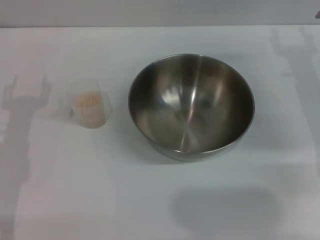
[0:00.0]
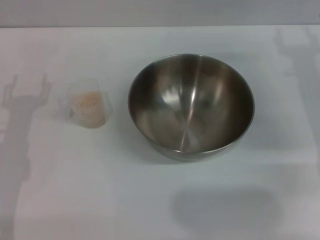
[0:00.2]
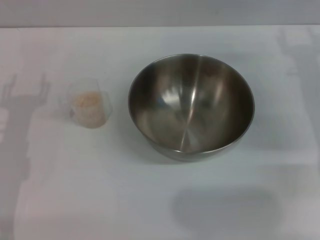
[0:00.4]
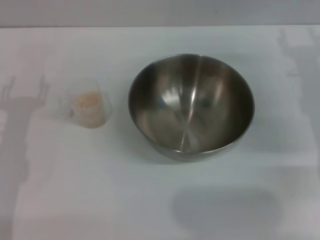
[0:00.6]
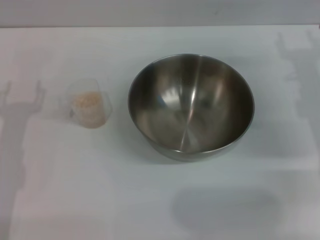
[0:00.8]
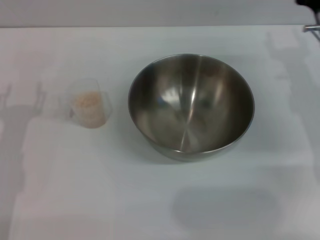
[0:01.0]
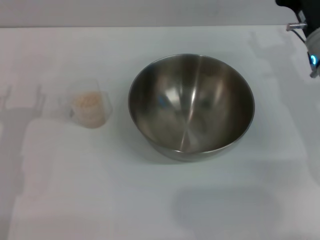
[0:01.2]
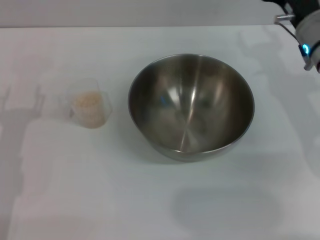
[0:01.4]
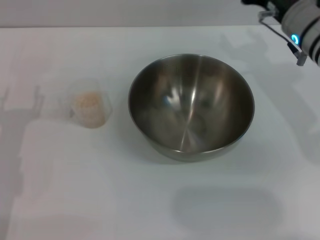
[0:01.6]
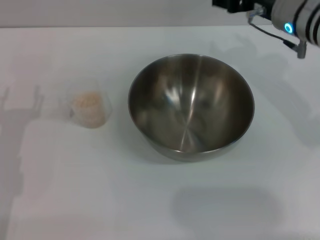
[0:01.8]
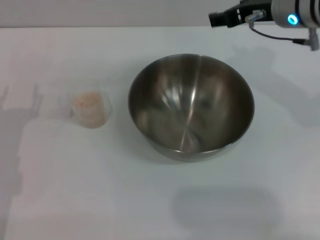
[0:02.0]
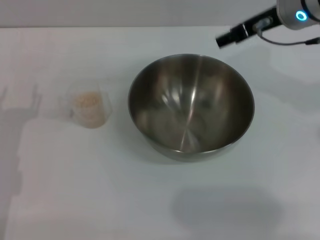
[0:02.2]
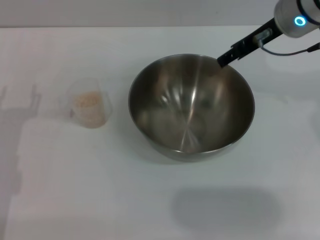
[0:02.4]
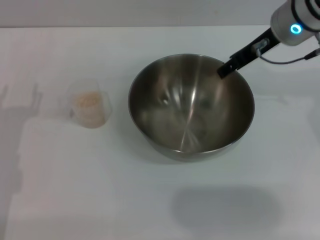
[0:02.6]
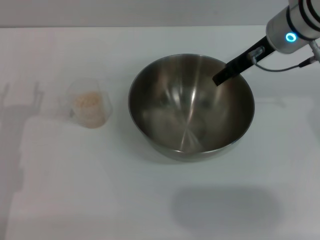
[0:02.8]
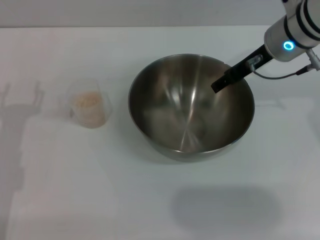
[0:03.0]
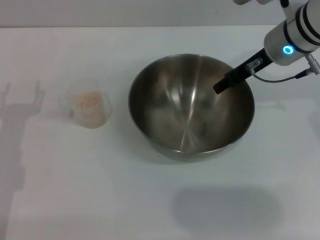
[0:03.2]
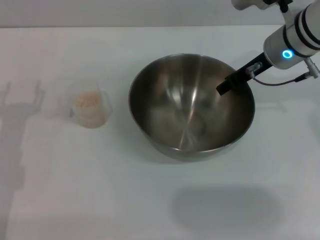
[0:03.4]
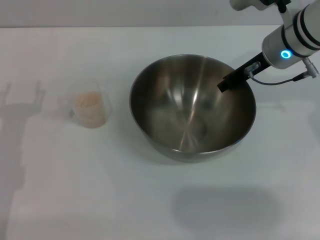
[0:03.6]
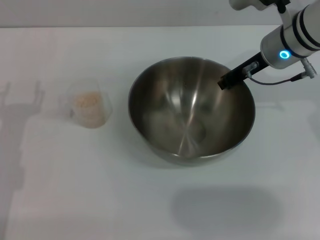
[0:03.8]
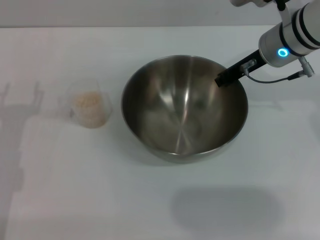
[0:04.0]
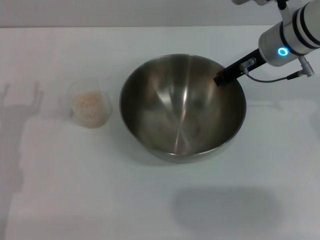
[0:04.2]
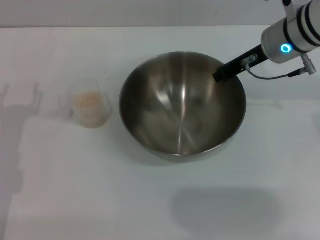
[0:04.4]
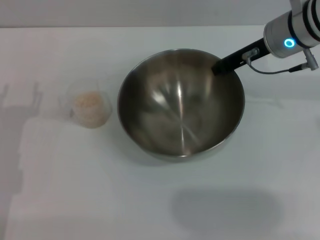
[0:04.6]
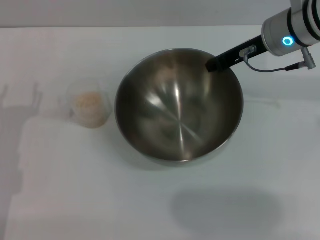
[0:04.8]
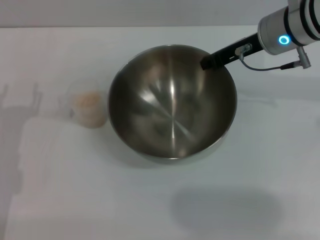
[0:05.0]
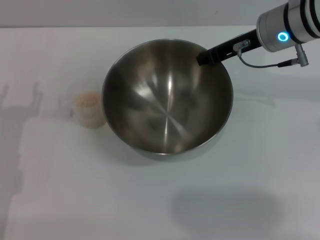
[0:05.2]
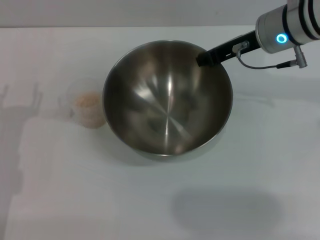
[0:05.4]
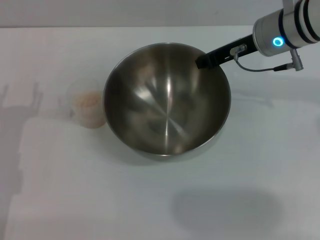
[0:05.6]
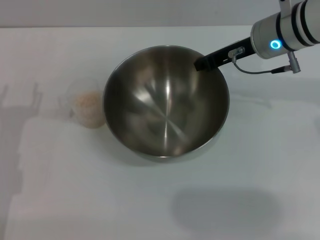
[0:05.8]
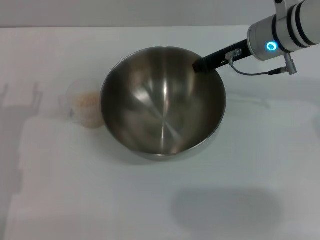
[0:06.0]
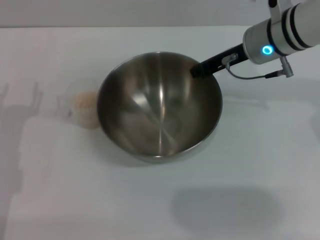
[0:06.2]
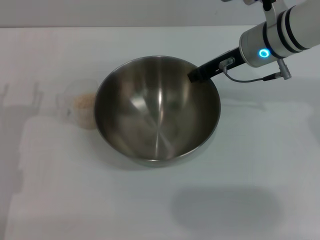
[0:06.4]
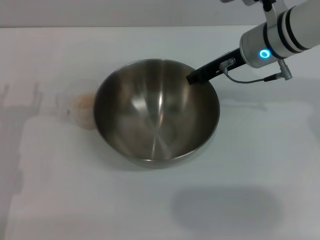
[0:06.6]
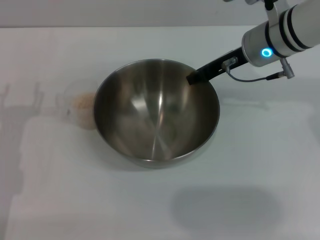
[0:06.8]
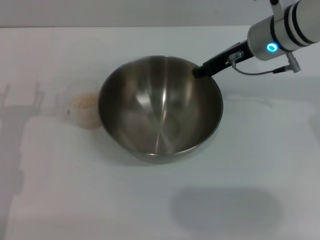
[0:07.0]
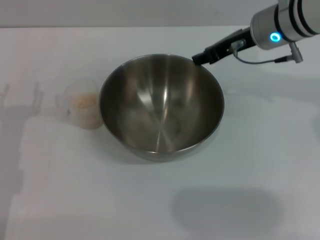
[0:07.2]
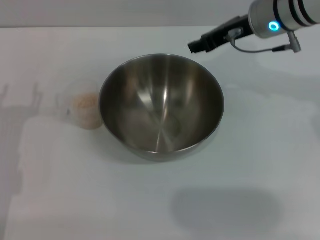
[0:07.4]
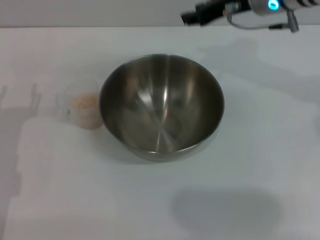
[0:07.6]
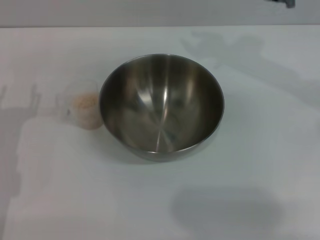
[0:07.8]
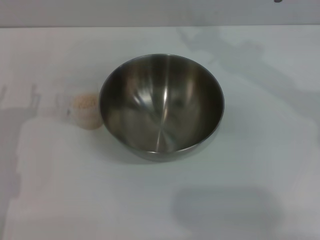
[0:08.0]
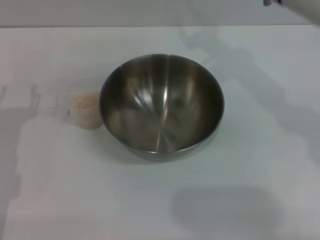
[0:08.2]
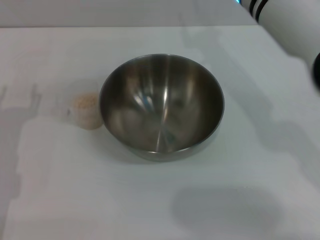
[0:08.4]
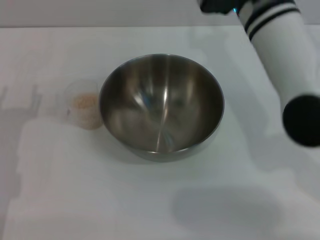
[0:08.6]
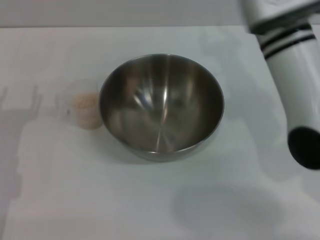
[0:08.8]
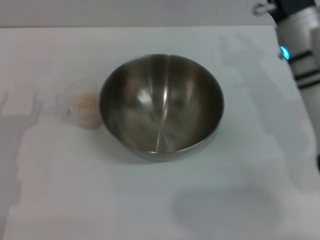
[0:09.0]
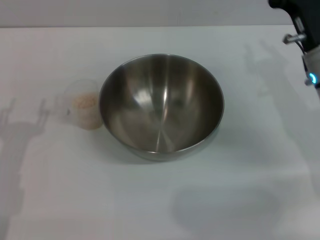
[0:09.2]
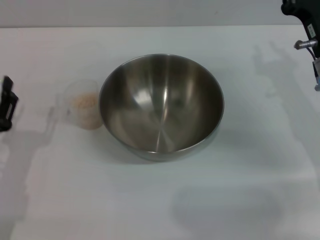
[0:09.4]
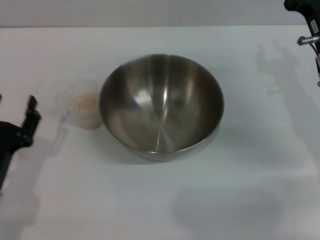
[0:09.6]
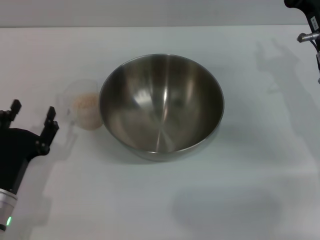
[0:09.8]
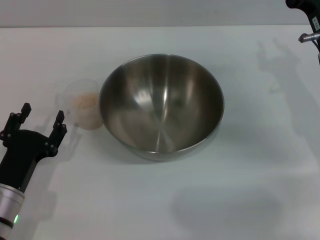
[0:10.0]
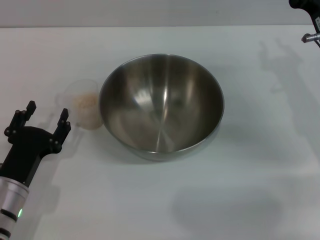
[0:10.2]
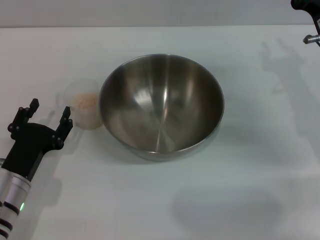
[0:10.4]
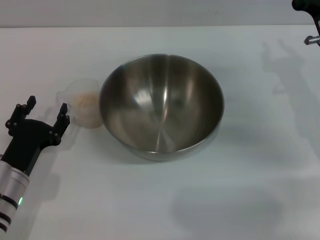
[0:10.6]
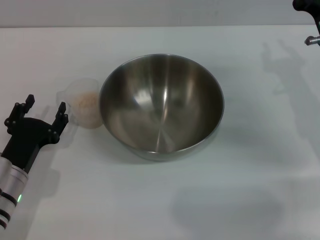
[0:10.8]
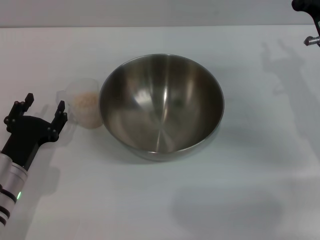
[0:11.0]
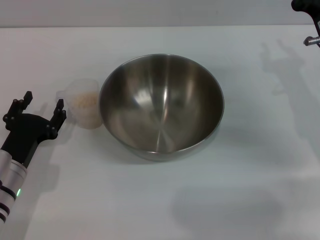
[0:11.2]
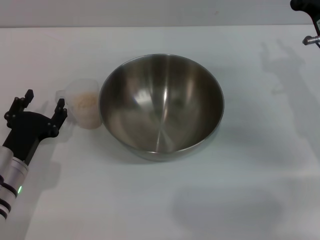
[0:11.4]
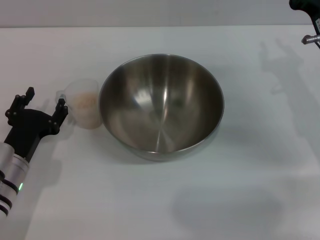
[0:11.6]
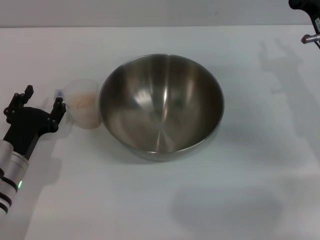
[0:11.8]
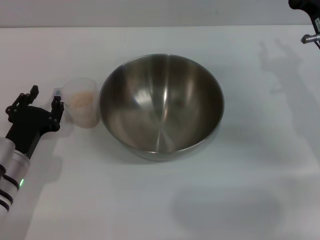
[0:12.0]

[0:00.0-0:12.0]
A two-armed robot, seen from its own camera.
Task of the whole recording: Place the bowl in the middle of the table with one hand and pour the rice from the grain cup into it with the other hand.
Step, 0:00.0 to 0:05.0: Pick up the bowl with the right gripper.
Step, 0:05.2 to 0:07.8: Place the bowl in the center of view with the right gripper.
0:00.0 to 0:01.6: The right gripper shifts approximately 10 cm to the left and upward.
0:03.0 to 0:04.4: The right gripper closes its fingers.
0:04.4 to 0:06.0: The grippers stay close to where they were, moving slightly.
0:06.0 to 0:07.6: The right gripper travels upward by roughly 5 cm, and opens.
0:07.6 to 0:09.0: The right gripper shifts approximately 10 cm downward and backward.
0:09.0 to 0:10.4: The left gripper shifts approximately 5 cm downward and to the right; the right gripper shifts roughly 5 cm to the right.
0:10.4 to 0:12.0: The grippers move only a little.

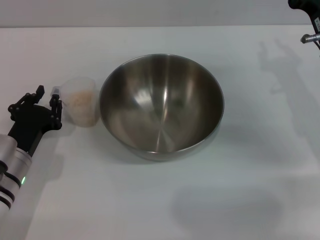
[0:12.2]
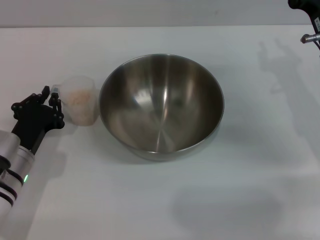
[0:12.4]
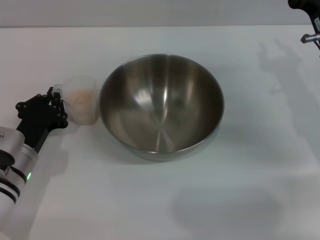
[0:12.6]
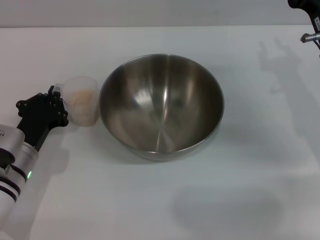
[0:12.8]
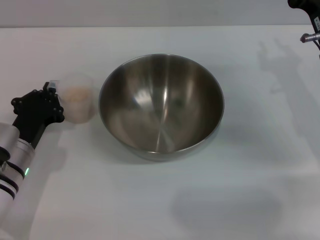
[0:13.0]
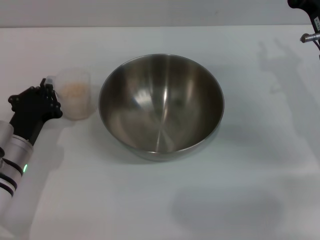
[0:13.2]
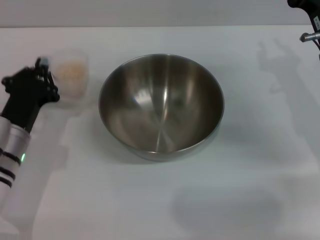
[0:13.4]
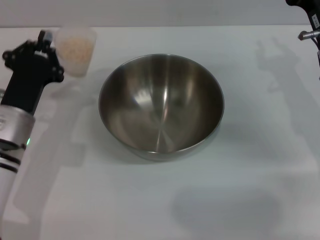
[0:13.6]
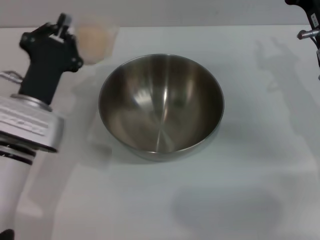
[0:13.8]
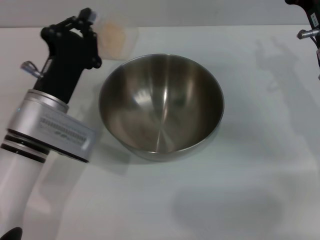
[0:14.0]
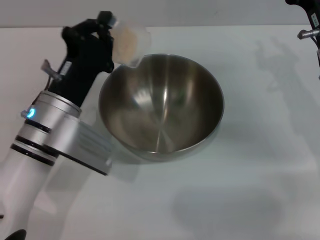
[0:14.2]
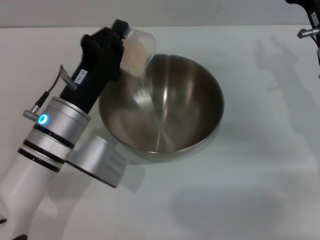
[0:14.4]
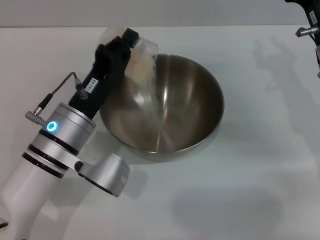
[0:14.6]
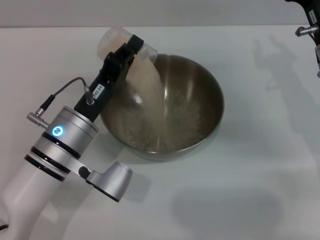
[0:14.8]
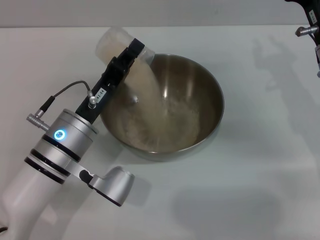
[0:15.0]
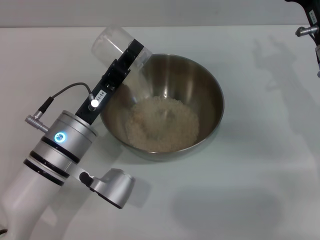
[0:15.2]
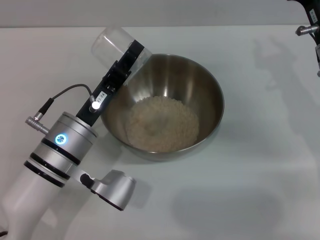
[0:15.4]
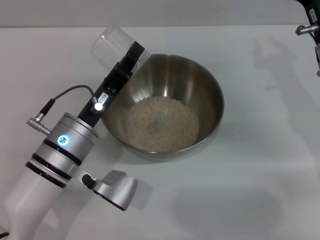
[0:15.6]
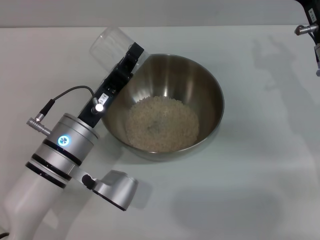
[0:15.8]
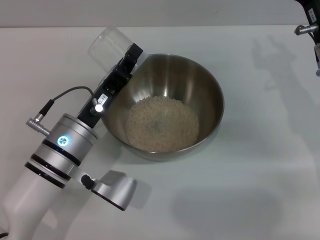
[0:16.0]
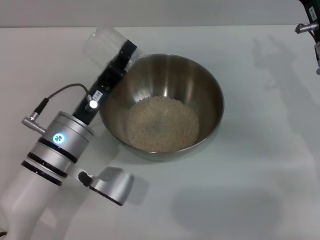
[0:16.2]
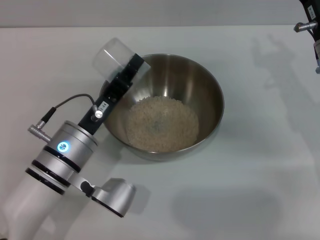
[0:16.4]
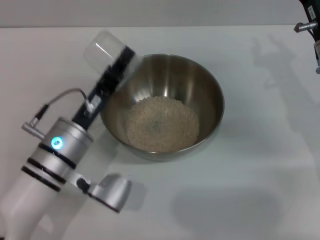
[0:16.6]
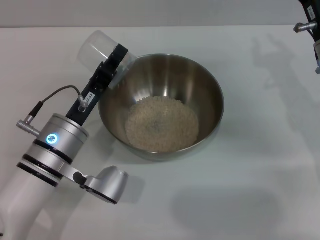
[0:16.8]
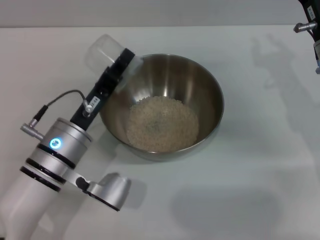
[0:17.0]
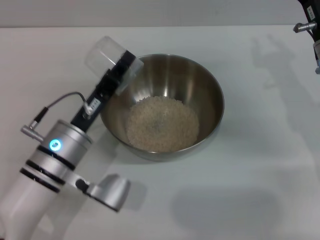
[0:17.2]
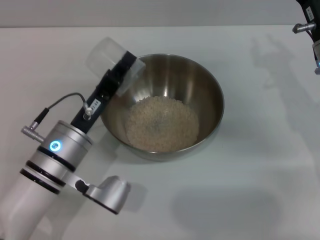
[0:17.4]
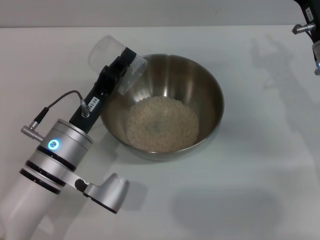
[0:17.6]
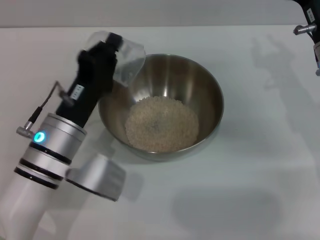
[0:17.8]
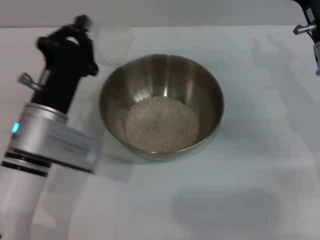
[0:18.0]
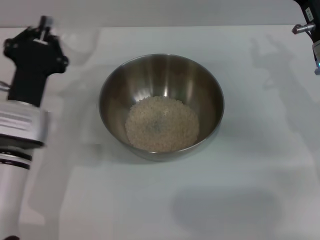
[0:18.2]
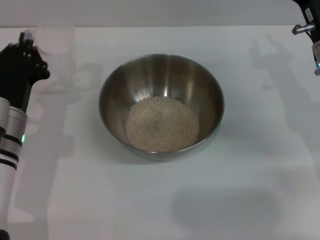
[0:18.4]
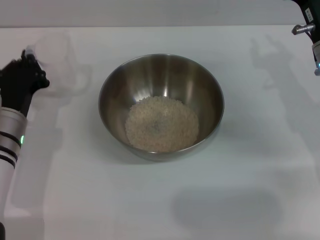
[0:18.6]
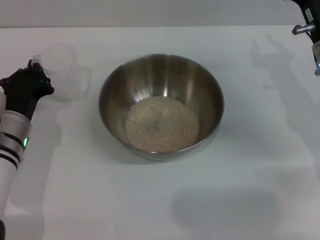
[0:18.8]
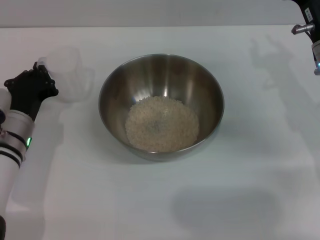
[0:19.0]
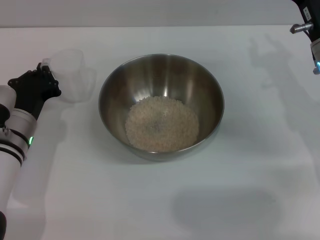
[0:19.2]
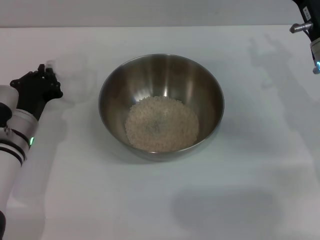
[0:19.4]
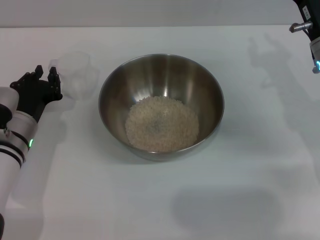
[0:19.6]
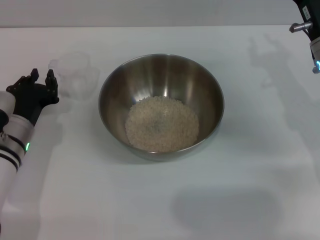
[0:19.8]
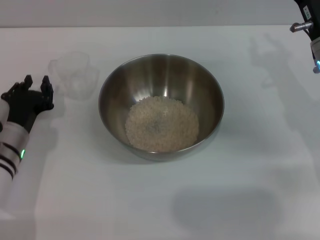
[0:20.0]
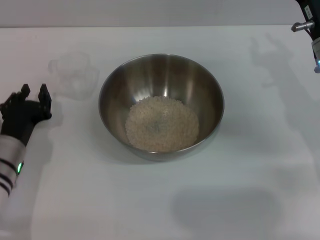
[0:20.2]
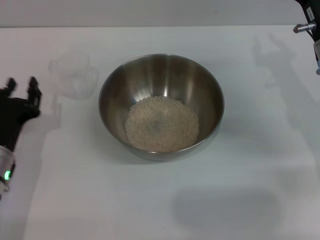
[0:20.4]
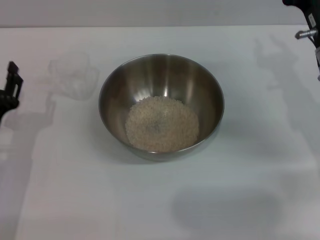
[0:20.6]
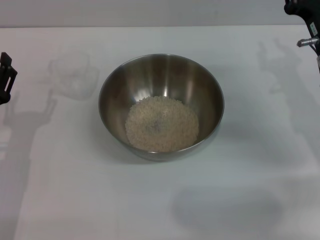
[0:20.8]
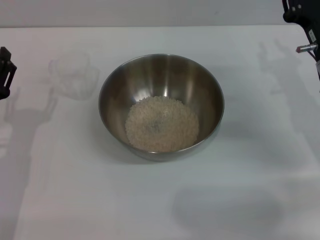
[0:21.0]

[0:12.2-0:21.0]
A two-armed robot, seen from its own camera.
Task of the whole recording: Place the bowl in the middle of the table with one hand and pour the rice from the grain cup into it with the other hand.
Step, 0:13.6 to 0:16.6: Pour the rice from the cup into the bowl with the left gripper.
Step, 0:16.8 to 0:20.0: Place the cup on the table with the left gripper.
0:12.2 to 0:13.6: The left gripper shifts by some 5 cm, and closes up.
0:13.6 to 0:15.2: The left gripper shifts approximately 5 cm to the right.
0:15.2 to 0:16.6: The grippers make only small movements.
0:18.0 to 0:19.6: The left gripper travels to the left and downward by some 10 cm.
0:19.6 to 0:21.0: The left gripper heads backward, covering some 5 cm, and opens its fingers.

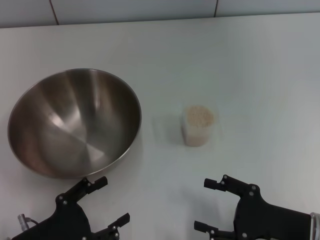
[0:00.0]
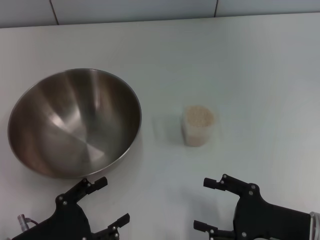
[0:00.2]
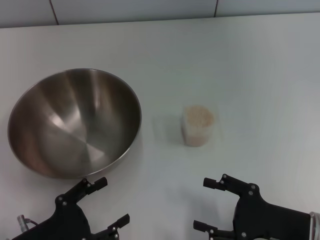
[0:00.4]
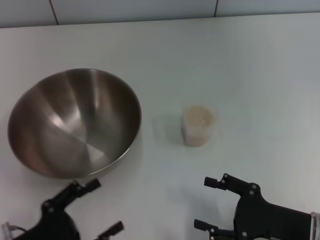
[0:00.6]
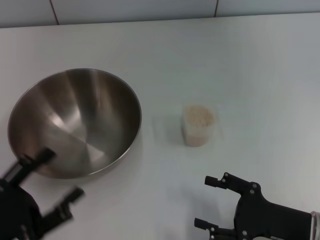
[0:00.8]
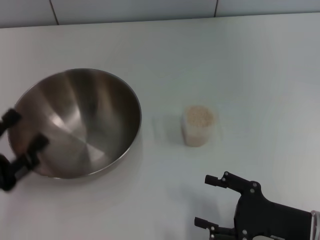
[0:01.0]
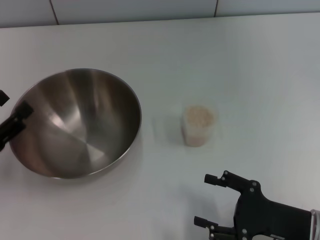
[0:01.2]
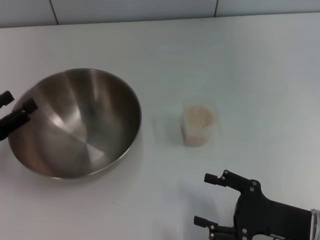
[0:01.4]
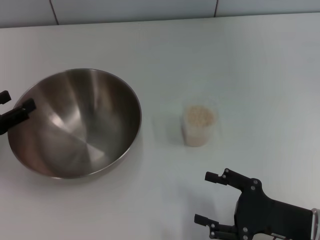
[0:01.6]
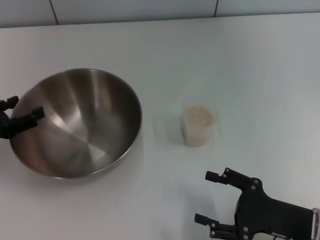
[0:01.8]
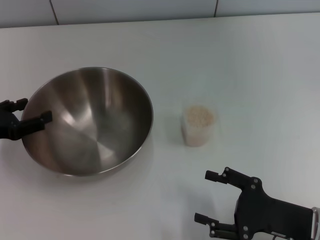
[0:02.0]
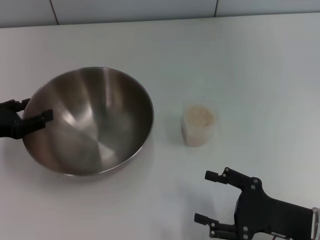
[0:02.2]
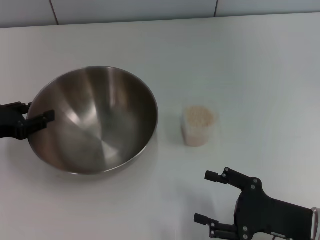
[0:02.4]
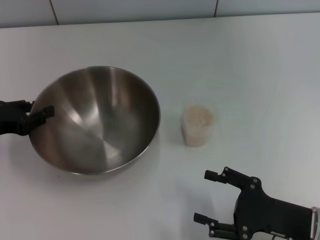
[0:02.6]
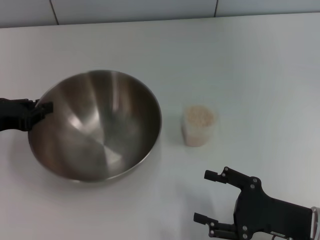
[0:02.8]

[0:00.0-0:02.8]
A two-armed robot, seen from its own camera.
Task of the whole recording: Place the bowl in the middle of the table with one hand and pour the rice from the grain cup into it with the other hand.
0:00.0 to 0:01.4: The left gripper shifts roughly 15 cm forward, to the left and upward.
0:01.4 to 0:02.8: The left gripper heads forward, covering approximately 5 cm, and closes.
